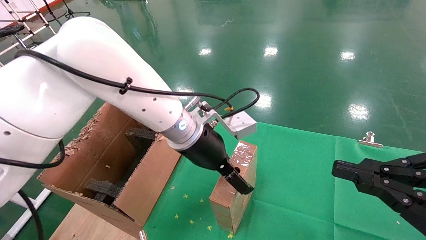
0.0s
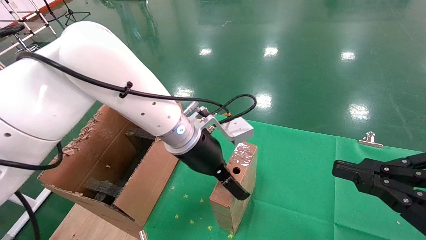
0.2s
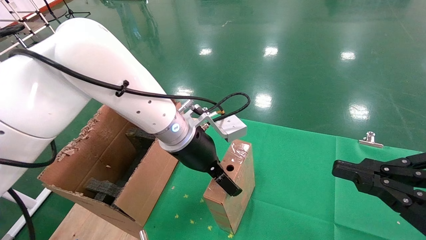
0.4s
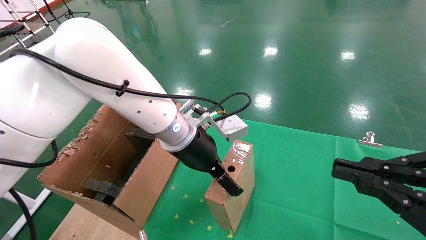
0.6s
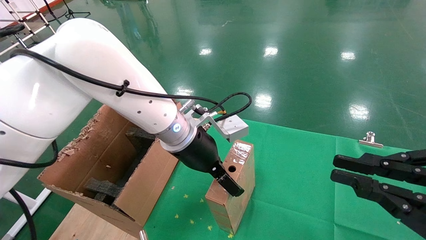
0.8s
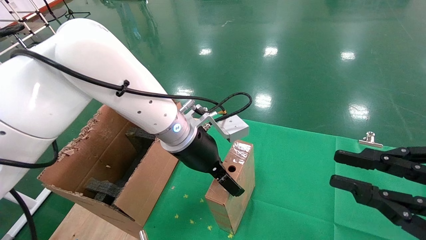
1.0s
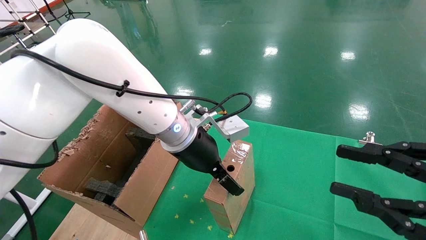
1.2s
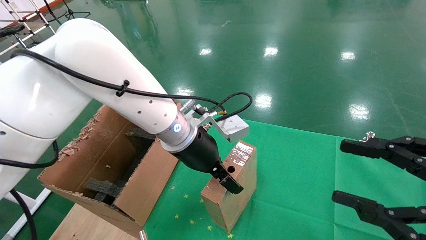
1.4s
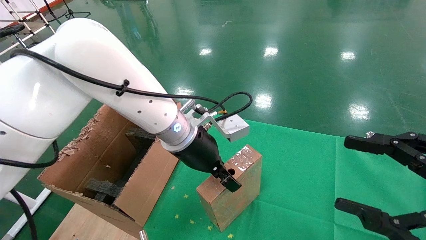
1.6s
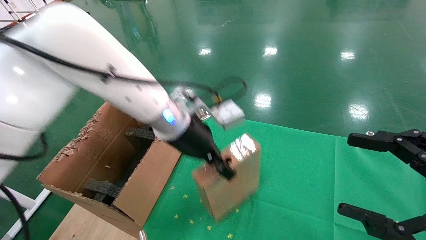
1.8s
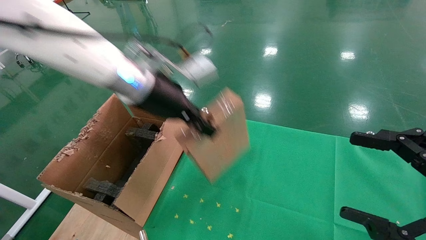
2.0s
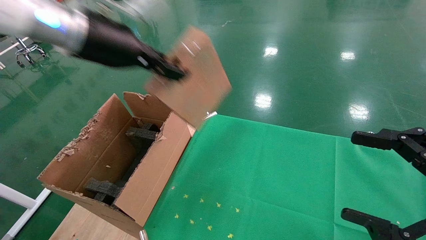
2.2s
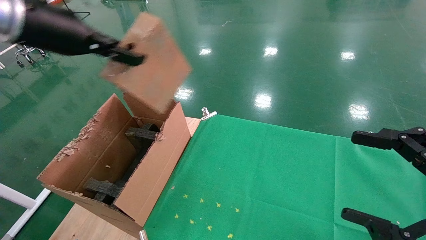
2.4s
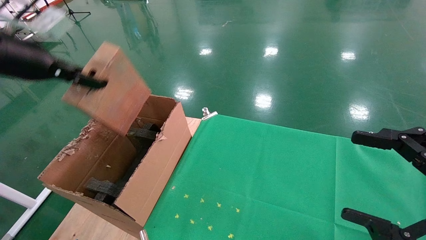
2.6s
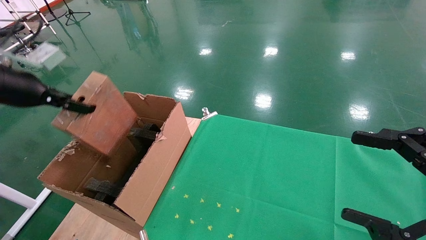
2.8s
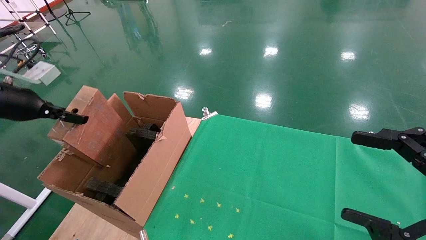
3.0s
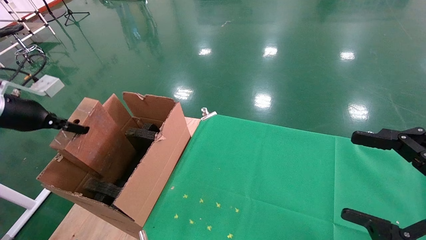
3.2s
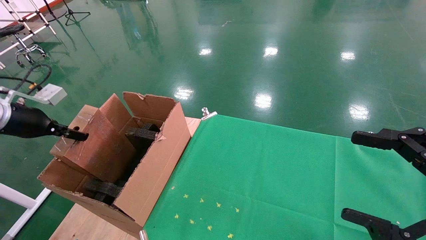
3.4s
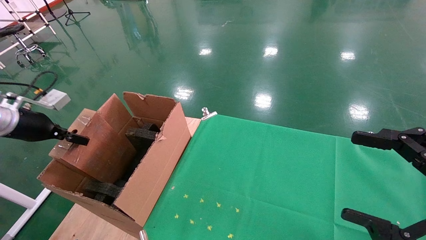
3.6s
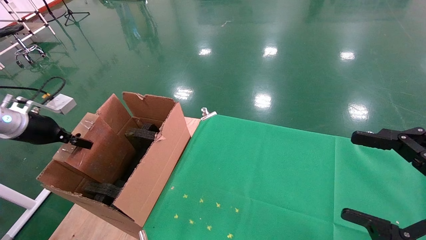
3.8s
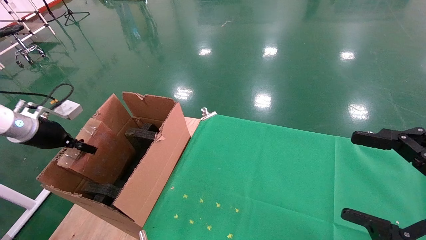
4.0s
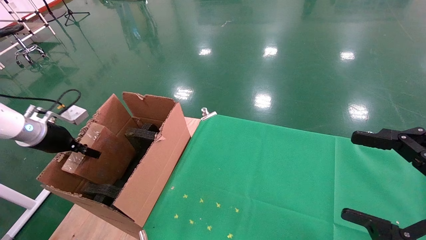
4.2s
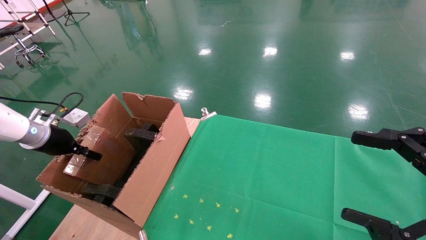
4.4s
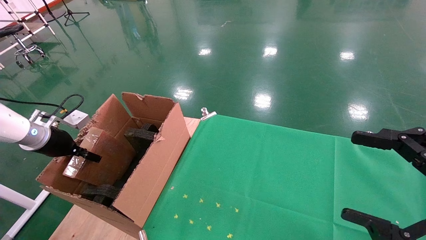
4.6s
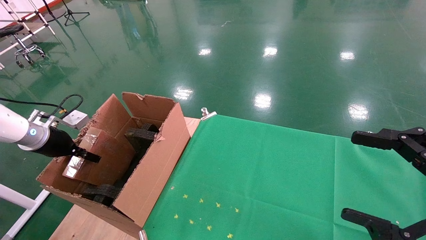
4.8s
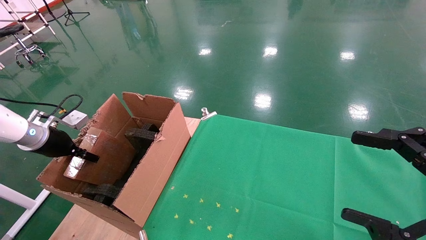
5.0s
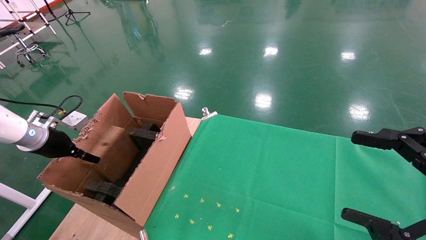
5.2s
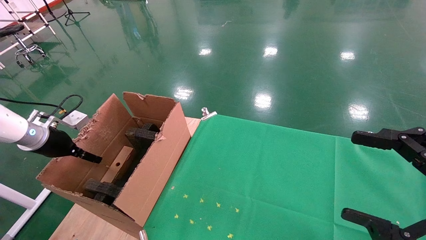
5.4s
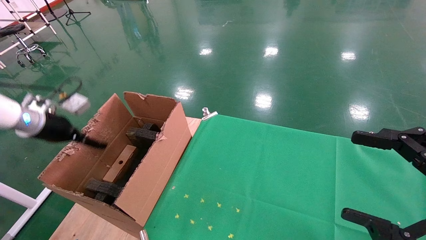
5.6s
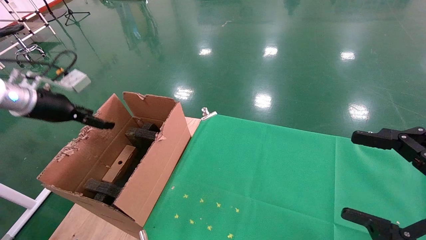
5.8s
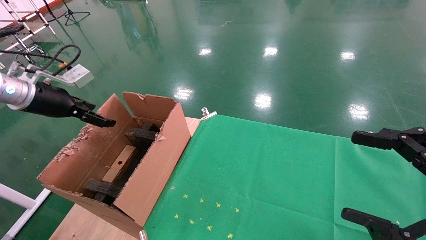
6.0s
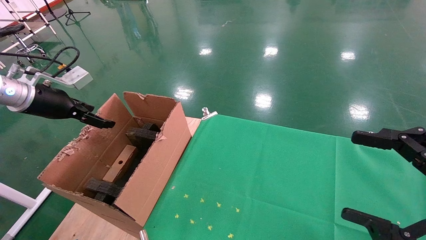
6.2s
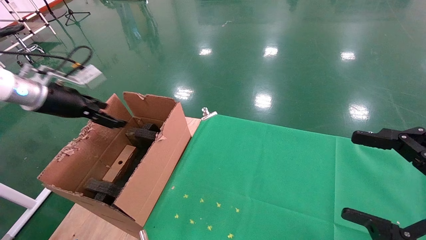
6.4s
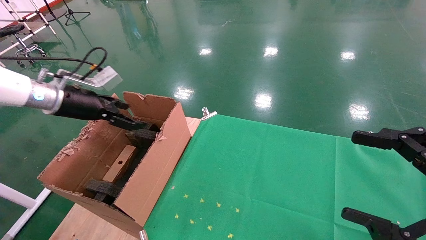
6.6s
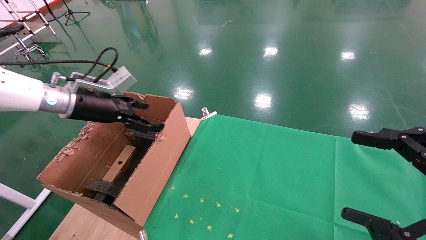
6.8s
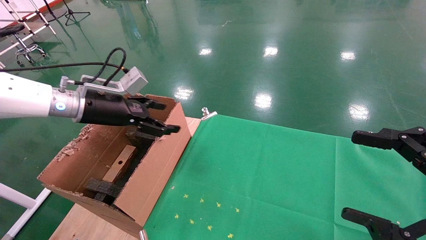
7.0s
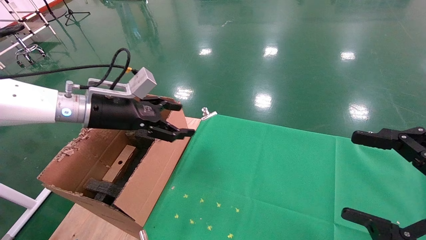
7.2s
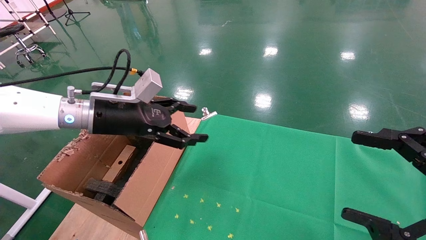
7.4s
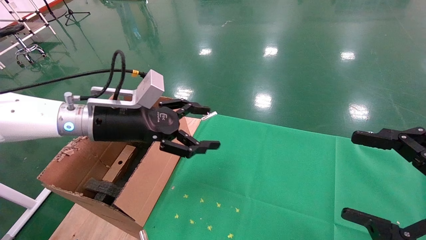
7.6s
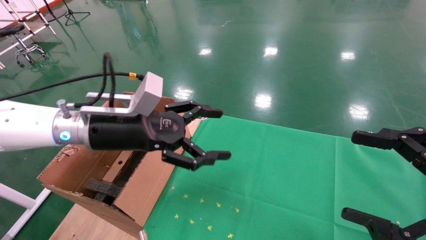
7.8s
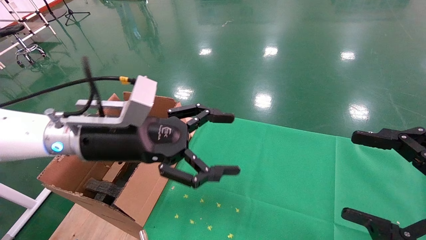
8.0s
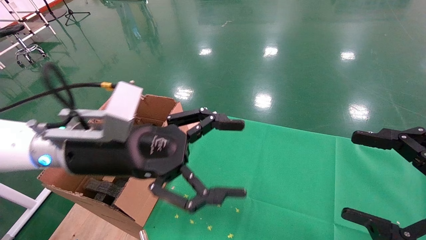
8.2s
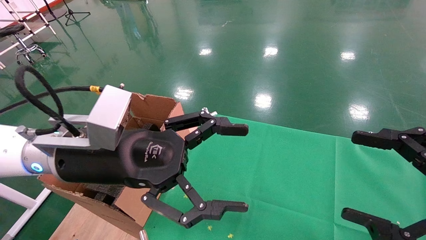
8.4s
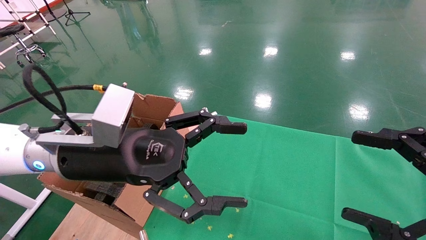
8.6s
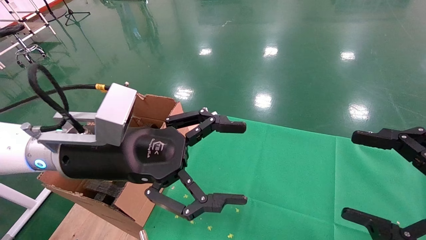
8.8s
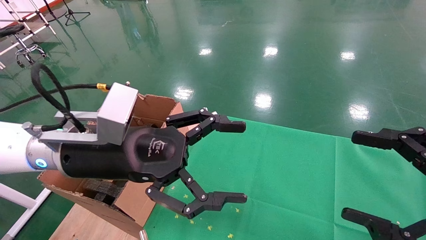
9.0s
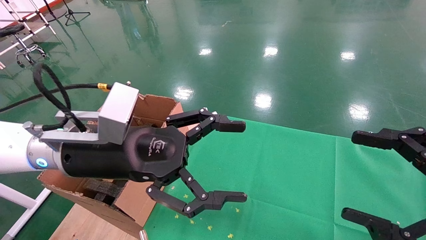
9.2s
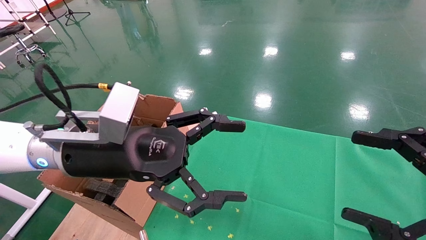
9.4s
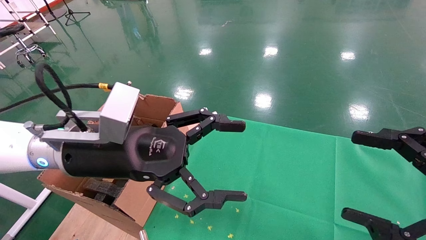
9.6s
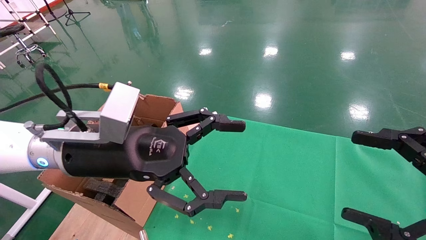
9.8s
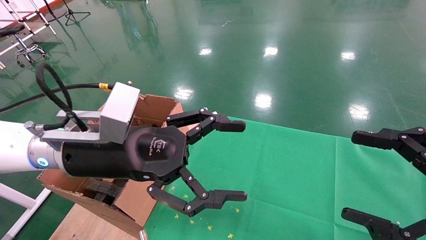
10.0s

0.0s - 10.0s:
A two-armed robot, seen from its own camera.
Task of the whole recording: using a robotic arm to pick up a cardboard box and palace it the carton.
Step, 1.8s - 6.0s: Place the mouse and the power cord paper box into the container.
0.0s - 1.4s: The right gripper opens.
1.4s - 2.8s: The left gripper heads to the left, covering approximately 35 cm, and closes, while the right gripper opens up.
2.8s - 4.2s: The left gripper travels downward, forward and to the left by about 20 cm.
4.2s - 5.8s: The left gripper is displaced upward by some 10 cm, and opens up.
5.8s - 7.2s: The left gripper travels to the right by approximately 20 cm.
7.2s - 8.6s: The left gripper shifts some 15 cm backward and to the right.
8.6s - 10.0s: Both grippers stay about where they are.

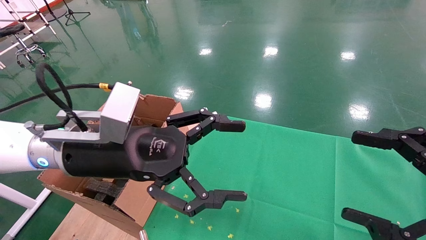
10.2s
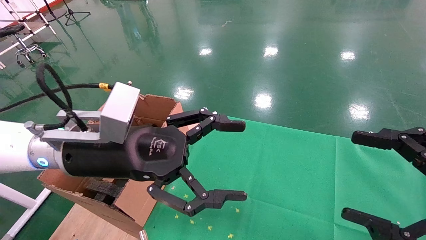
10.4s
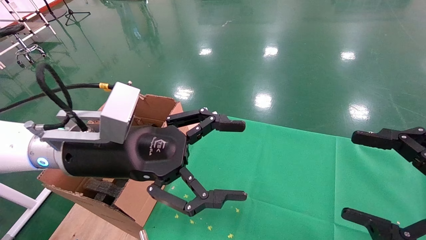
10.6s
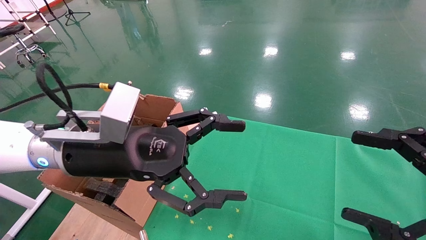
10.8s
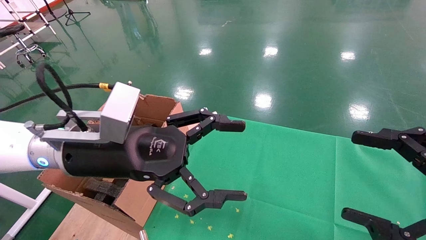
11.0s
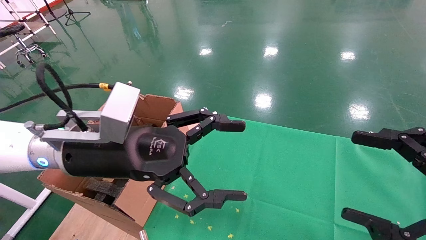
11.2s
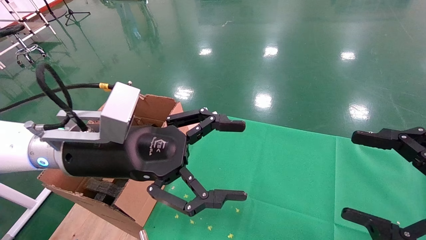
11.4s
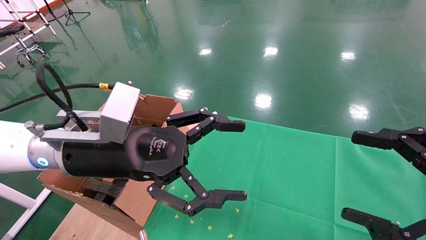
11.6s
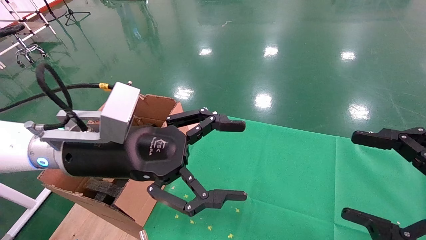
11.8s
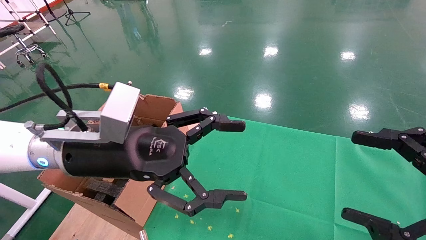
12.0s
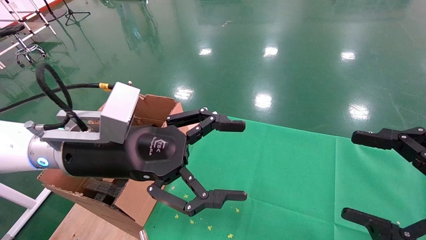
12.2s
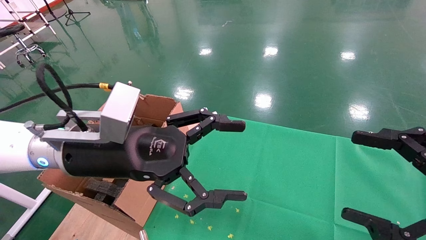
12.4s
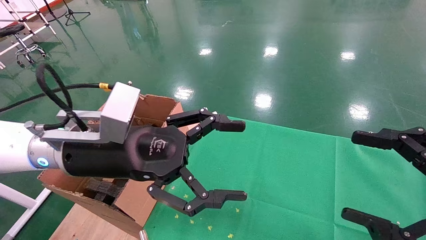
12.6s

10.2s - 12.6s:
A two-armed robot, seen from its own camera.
Task of the whole recording: using a robotic arm to pick up a cardboard box and palace it the carton.
10.2s - 12.6s: Both grippers stay about where they are.
